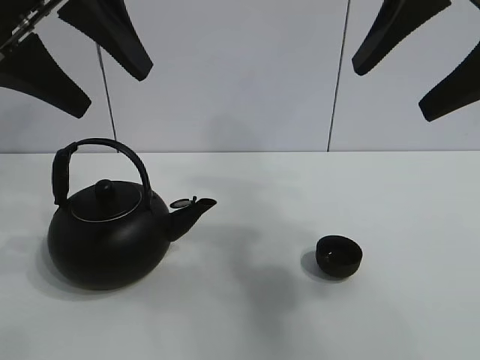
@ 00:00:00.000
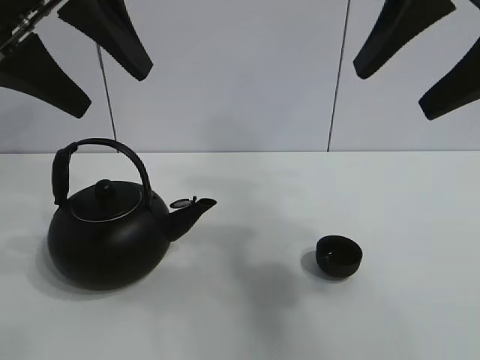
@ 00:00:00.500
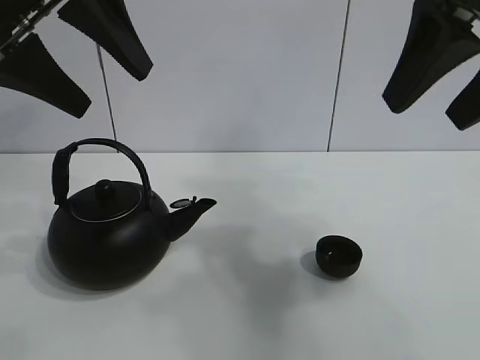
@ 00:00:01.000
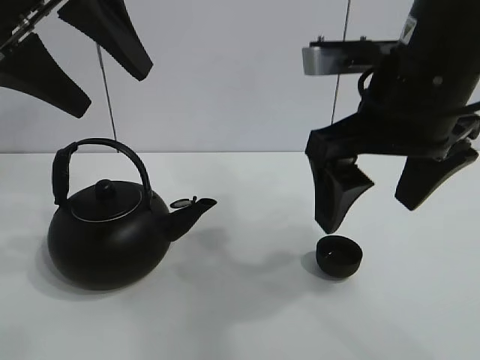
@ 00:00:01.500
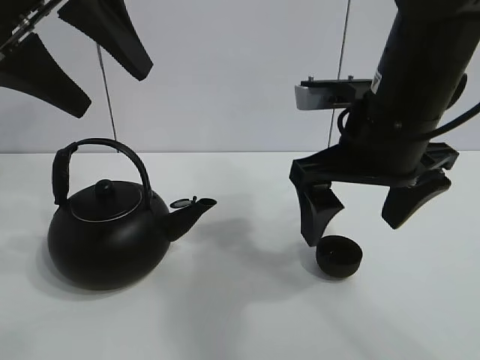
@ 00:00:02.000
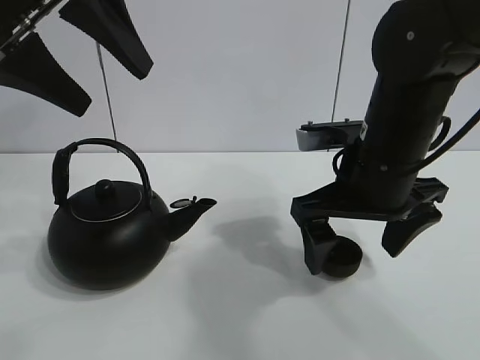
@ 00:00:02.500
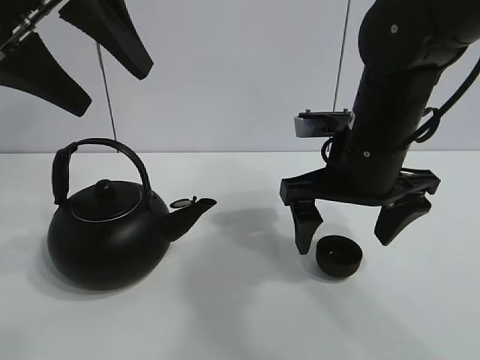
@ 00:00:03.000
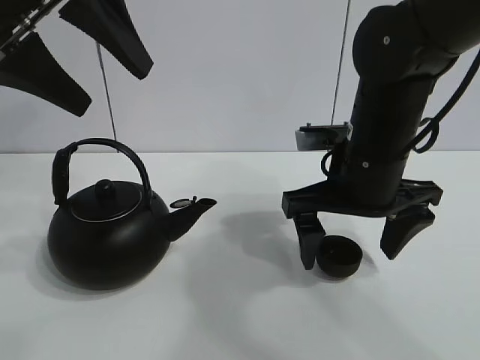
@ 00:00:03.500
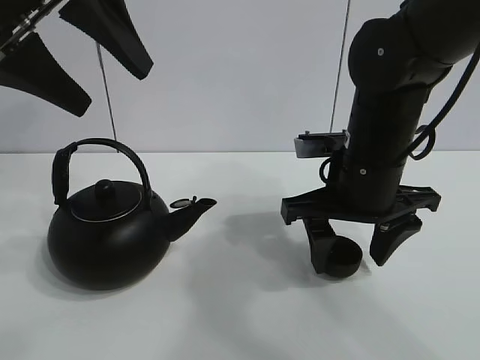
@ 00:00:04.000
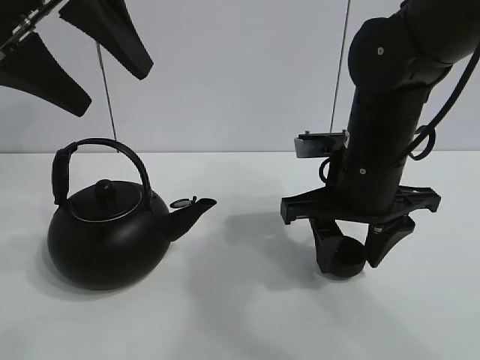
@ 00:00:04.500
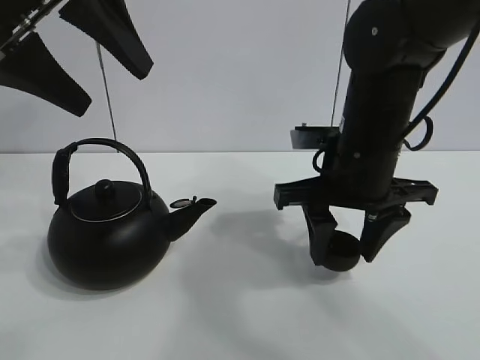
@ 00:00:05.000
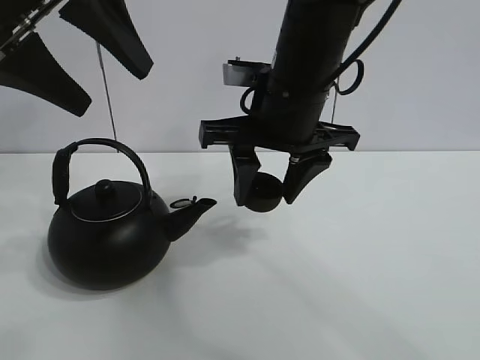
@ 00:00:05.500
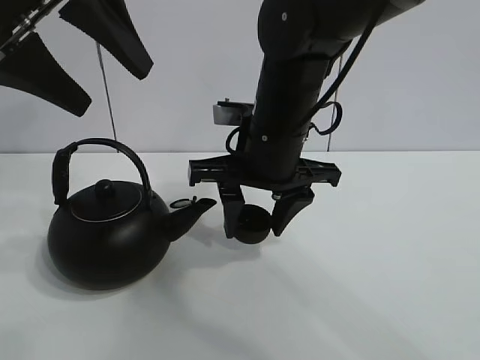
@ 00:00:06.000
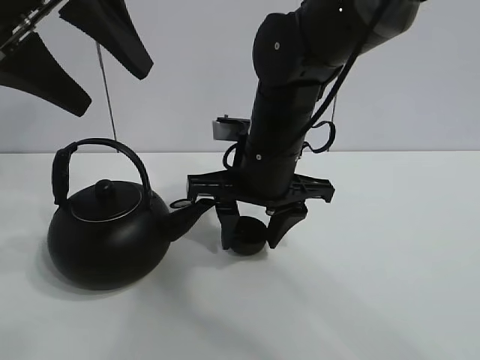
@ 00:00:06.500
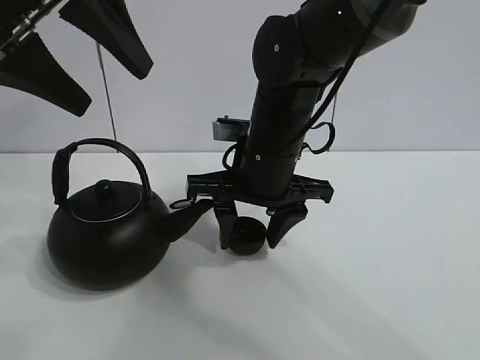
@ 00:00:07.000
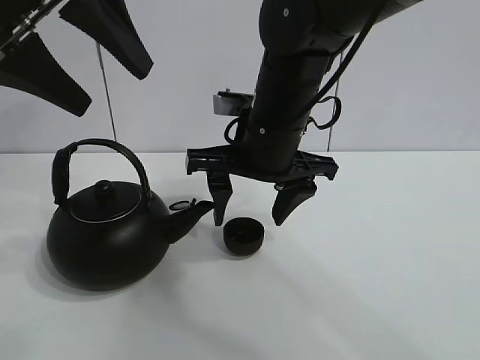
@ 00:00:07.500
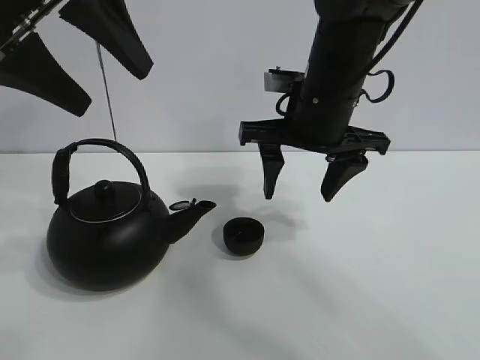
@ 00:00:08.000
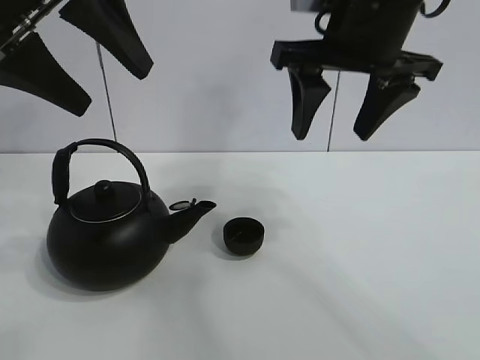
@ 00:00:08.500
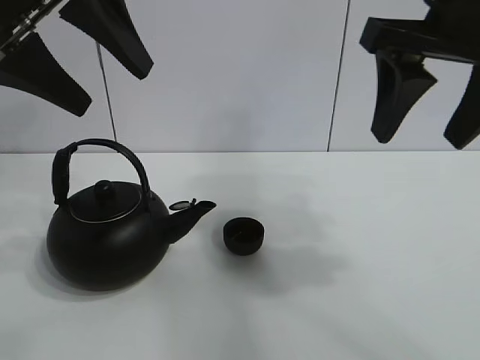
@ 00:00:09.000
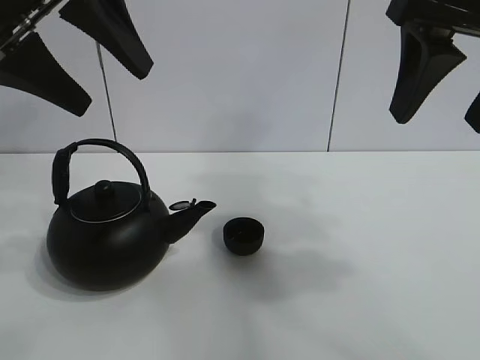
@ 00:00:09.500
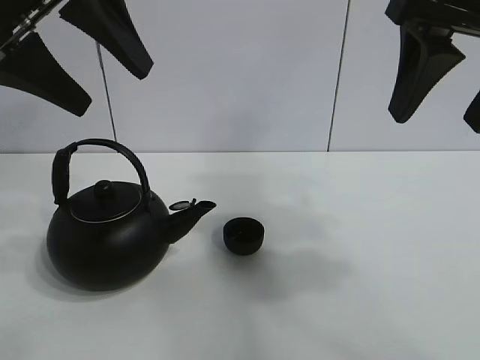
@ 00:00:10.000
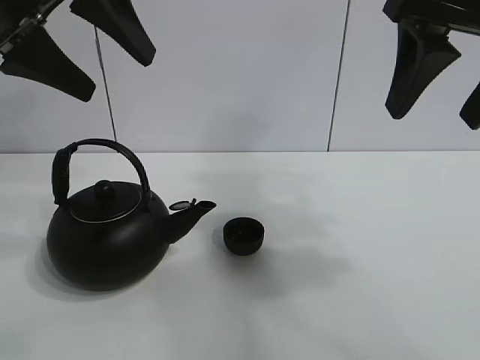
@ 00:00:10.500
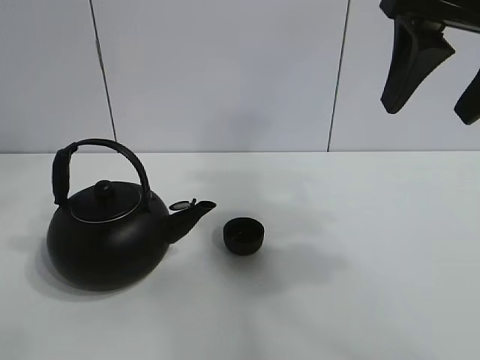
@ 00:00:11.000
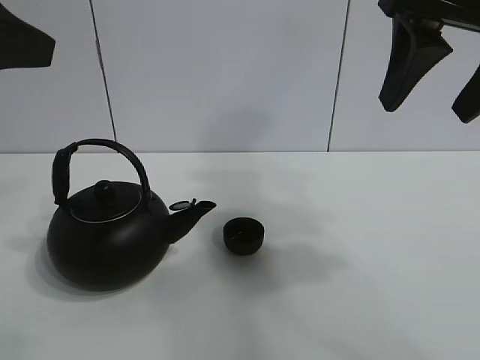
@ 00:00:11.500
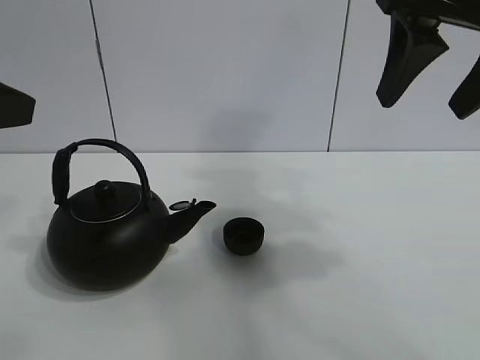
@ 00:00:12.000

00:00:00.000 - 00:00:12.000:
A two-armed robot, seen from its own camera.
Task of the whole recording: pour tea into the teacup.
Step, 00:00:00.000 - 00:00:05.000: Pick up the teacup with the right gripper.
Step, 00:00:05.500 - 00:00:07.000: Place the teacup in the center of view with the right gripper.
00:00:02.000 - 00:00:04.000: The right gripper shifts about 5 cm downward, and closes.
00:00:04.000 - 00:00:06.000: The right gripper goes some 10 cm to the left, and closes its fingers.
00:00:06.000 - 00:00:08.000: The right gripper shifts roughly 5 cm to the right, and opens.
00:00:08.000 - 00:00:10.000: The right gripper is displaced upward, backward and to the right by approximately 20 cm.
00:00:10.000 - 00:00:12.000: The left gripper shifts some 15 cm backward, to the left and downward.

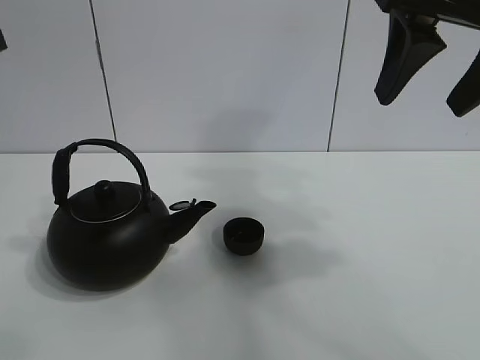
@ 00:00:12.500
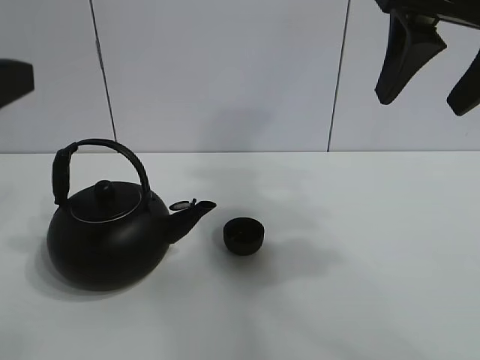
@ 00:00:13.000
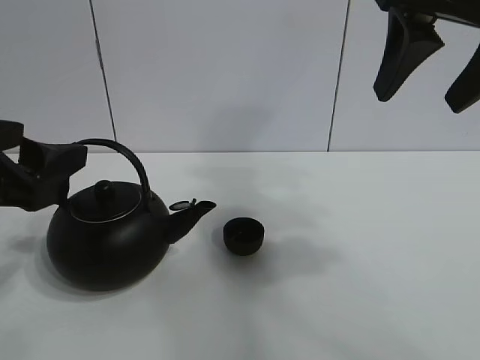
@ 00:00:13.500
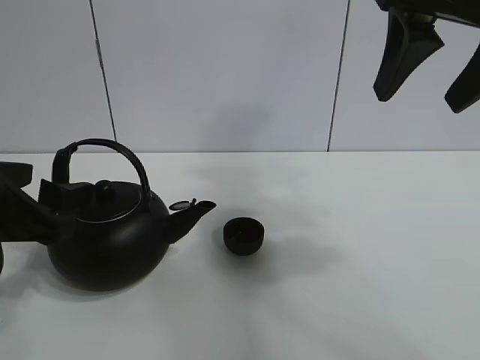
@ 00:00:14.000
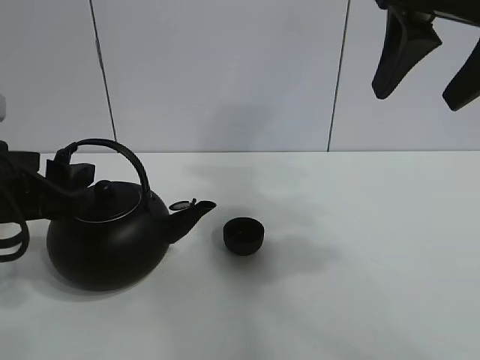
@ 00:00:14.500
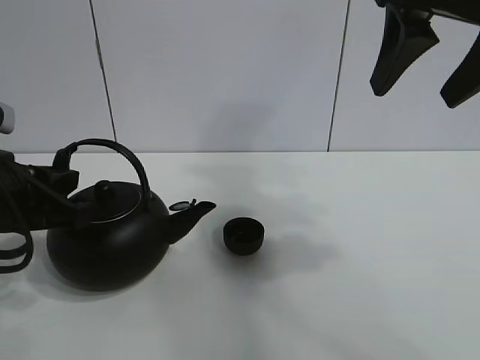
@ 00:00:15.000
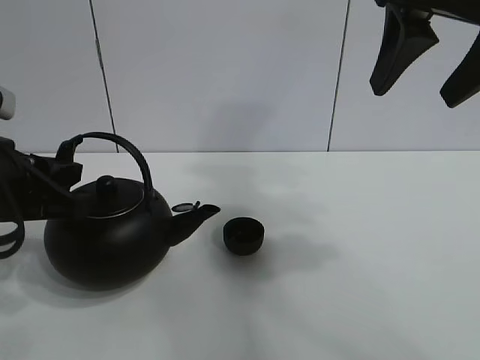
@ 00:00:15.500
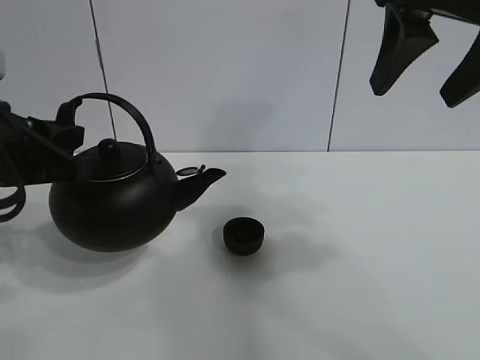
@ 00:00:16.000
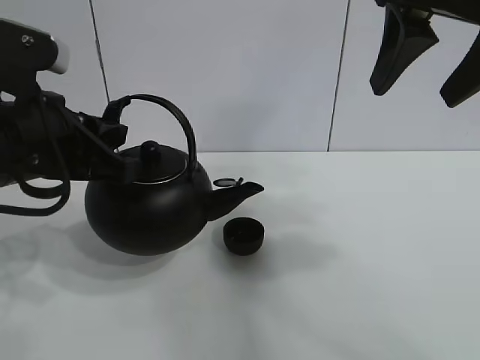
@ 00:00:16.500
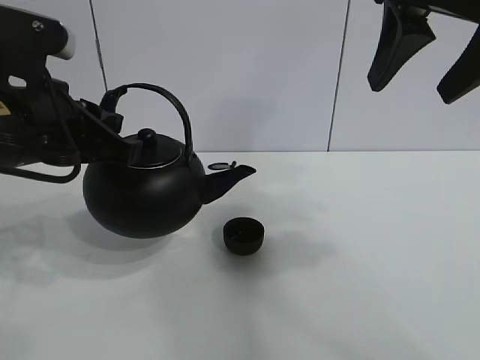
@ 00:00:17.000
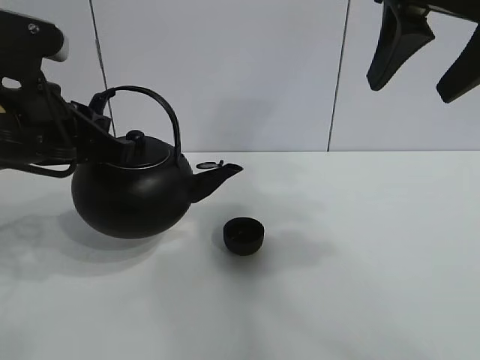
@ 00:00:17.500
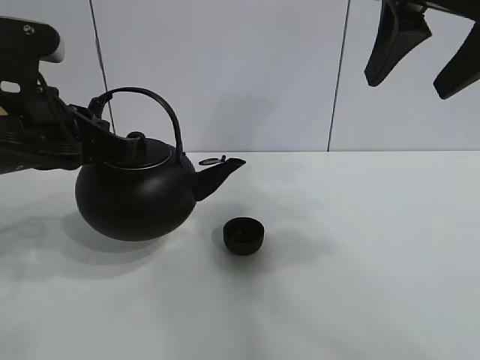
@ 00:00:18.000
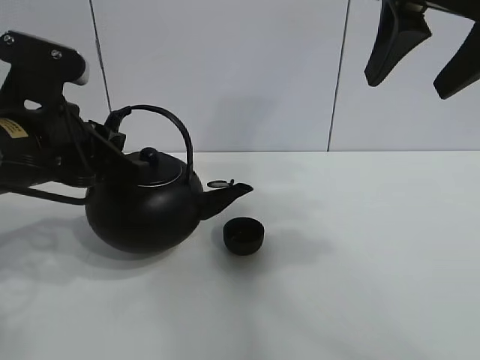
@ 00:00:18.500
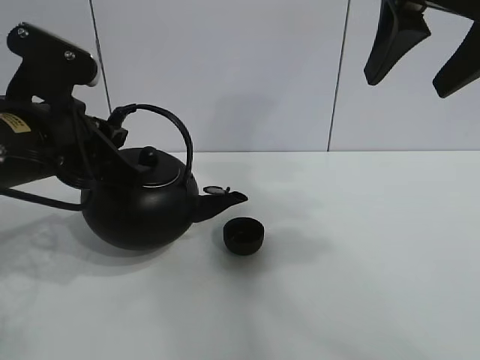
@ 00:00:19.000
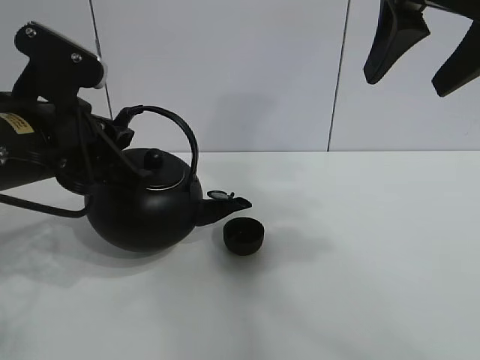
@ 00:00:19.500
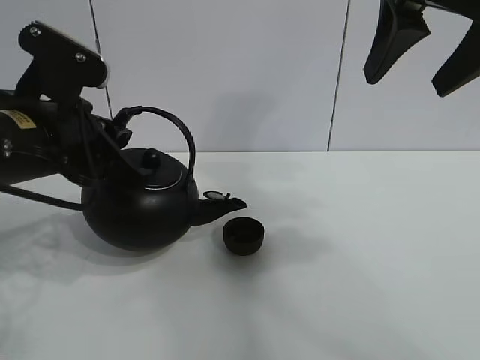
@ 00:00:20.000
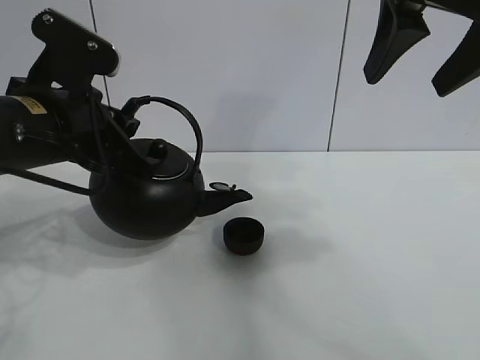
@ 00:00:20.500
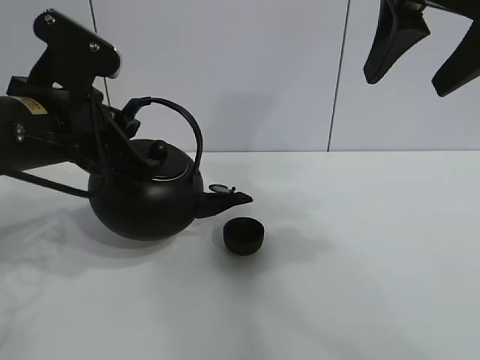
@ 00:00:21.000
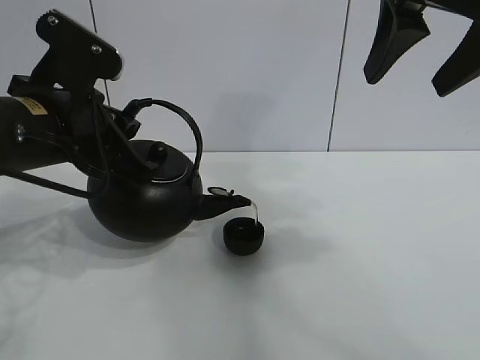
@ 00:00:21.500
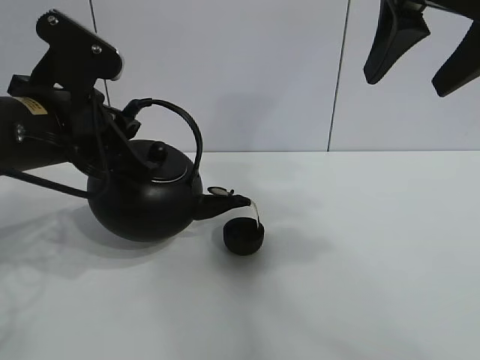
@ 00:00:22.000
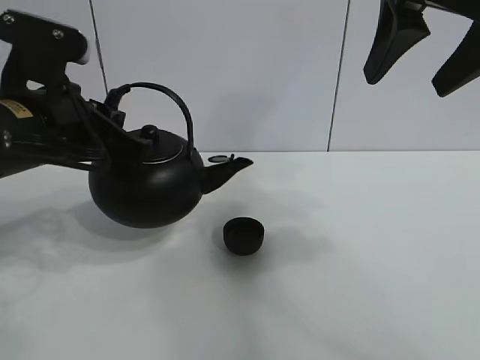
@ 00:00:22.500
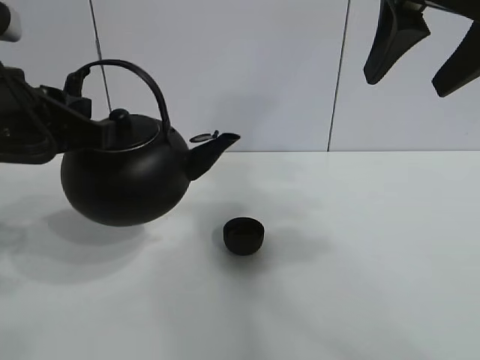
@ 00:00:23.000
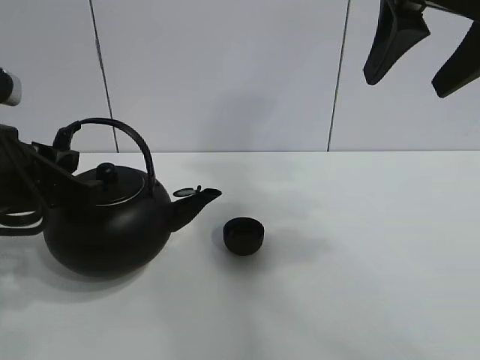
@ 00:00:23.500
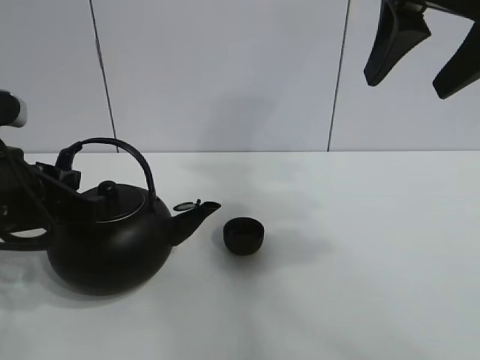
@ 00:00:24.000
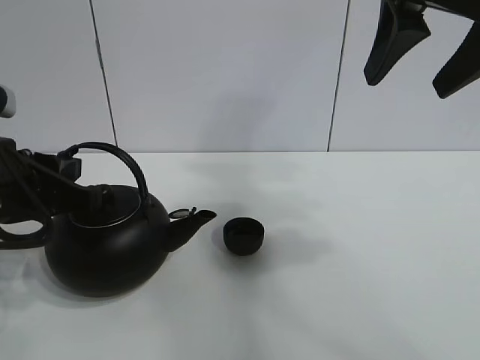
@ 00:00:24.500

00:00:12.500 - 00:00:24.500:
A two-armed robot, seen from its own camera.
Task of the whole recording: pour tea into the teacup.
Step, 00:00:12.500 - 00:00:15.500: Pick up the teapot with the left gripper.
Step, 00:00:16.000 - 00:00:22.000: Pour tea into the teacup with the left gripper.
00:00:12.500 - 00:00:14.500: The left gripper heads downward, covering approximately 15 cm.
00:00:14.500 - 00:00:16.500: The left gripper shifts by some 5 cm, and closes up.
00:00:16.500 - 00:00:22.500: There are only small adjustments of the grippers.
00:00:22.500 - 00:00:24.500: The left gripper shifts by some 5 cm.

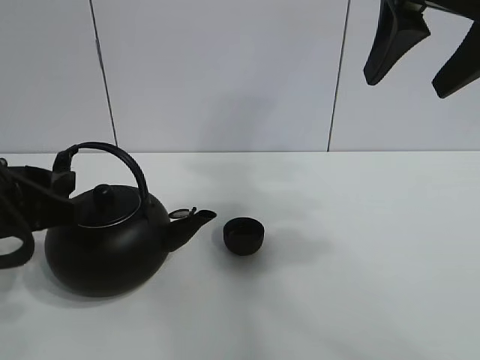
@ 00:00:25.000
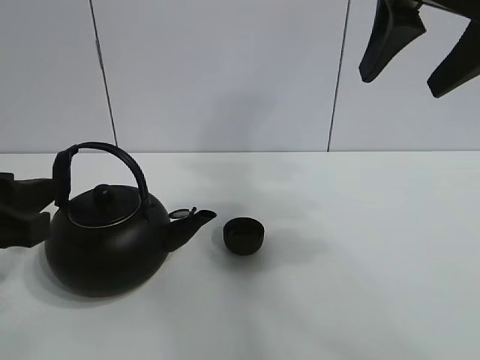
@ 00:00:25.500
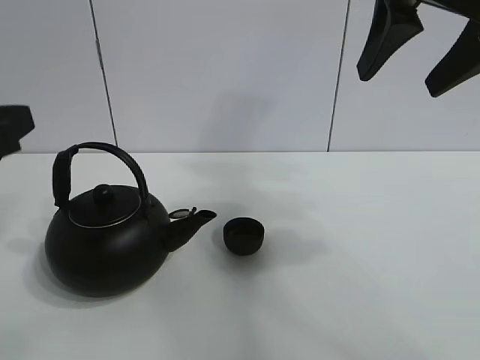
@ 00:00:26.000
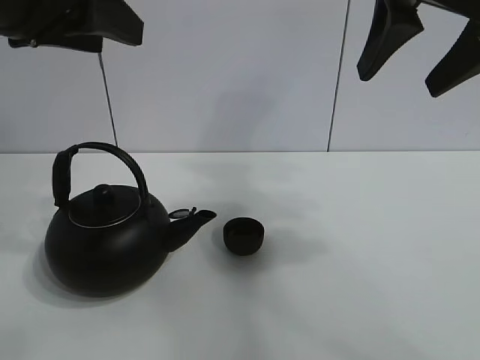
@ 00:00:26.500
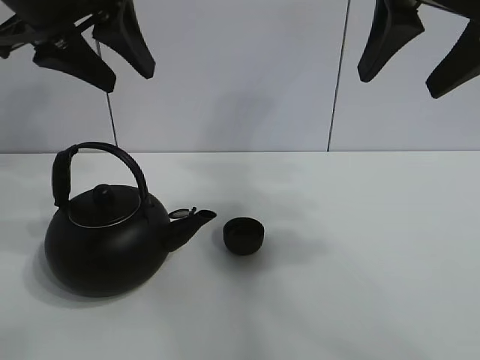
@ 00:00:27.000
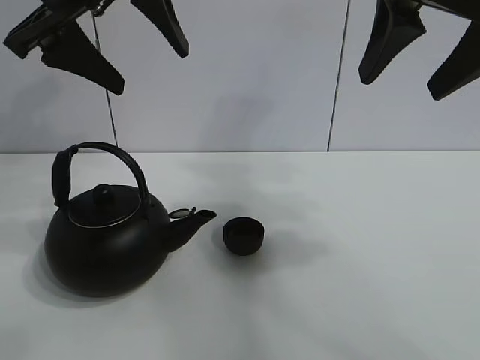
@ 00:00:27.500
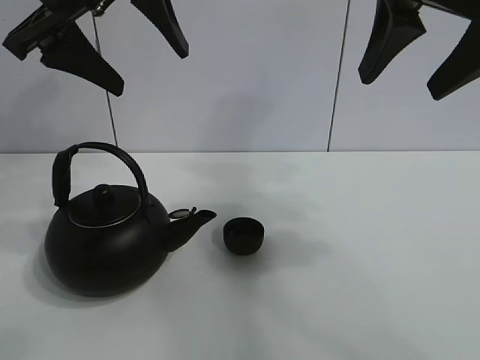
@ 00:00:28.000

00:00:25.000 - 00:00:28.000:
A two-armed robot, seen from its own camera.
Task of the whole recording: pour tea into the teacup.
00:00:25.000 - 00:00:26.500: The left gripper is displaced upward by some 15 cm.
00:00:26.500 - 00:00:28.000: The left gripper heads forward, covering some 5 cm, and opens its fingers.
